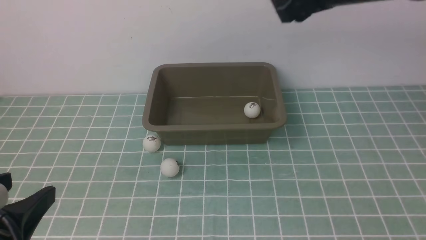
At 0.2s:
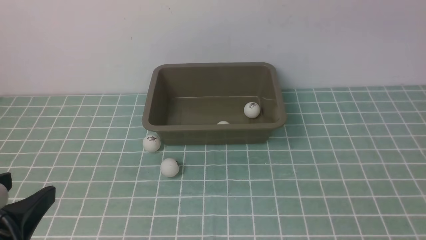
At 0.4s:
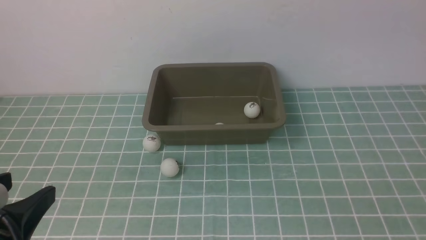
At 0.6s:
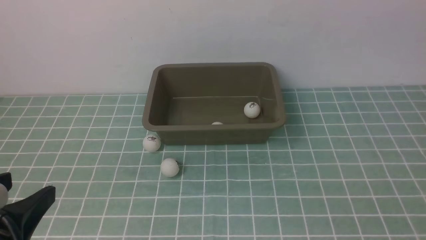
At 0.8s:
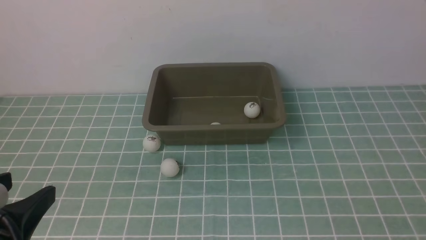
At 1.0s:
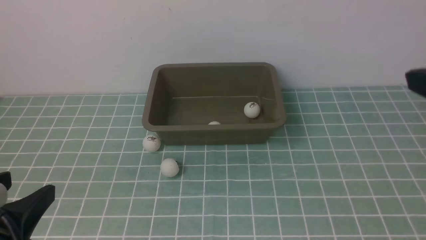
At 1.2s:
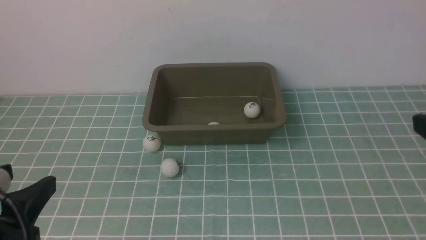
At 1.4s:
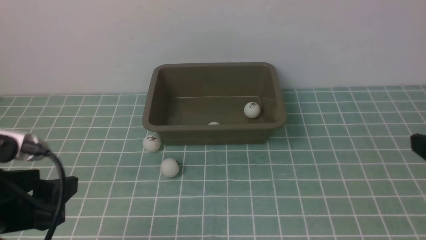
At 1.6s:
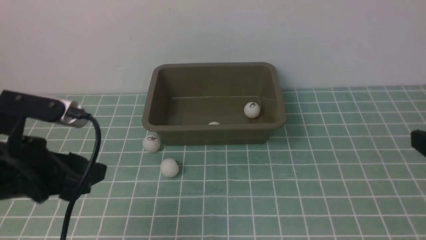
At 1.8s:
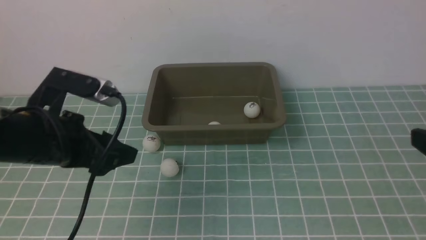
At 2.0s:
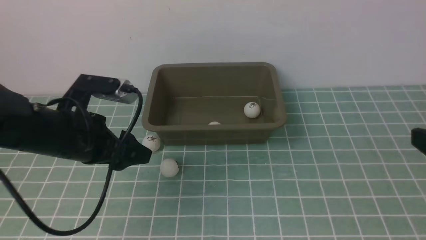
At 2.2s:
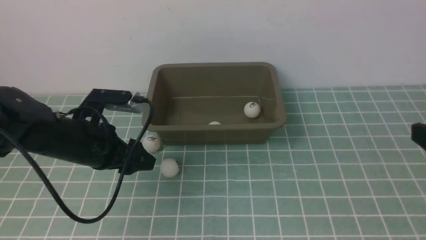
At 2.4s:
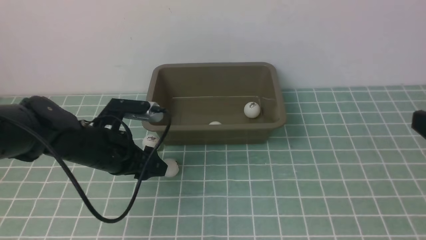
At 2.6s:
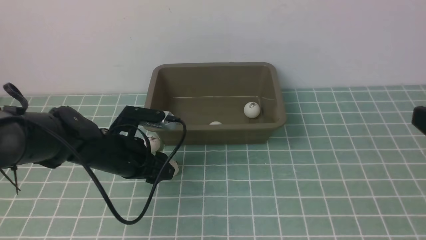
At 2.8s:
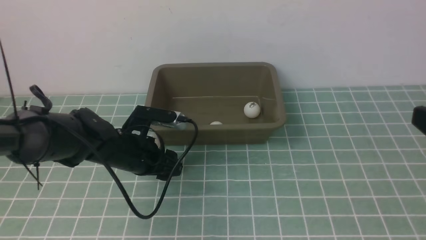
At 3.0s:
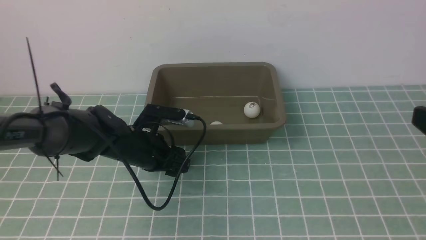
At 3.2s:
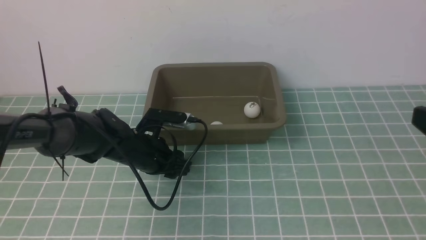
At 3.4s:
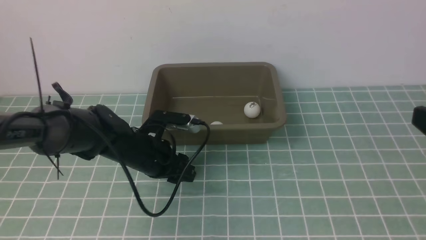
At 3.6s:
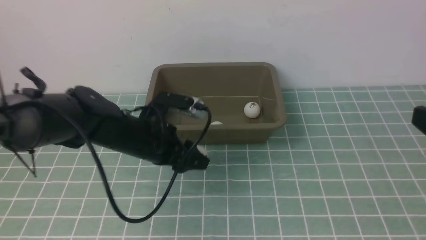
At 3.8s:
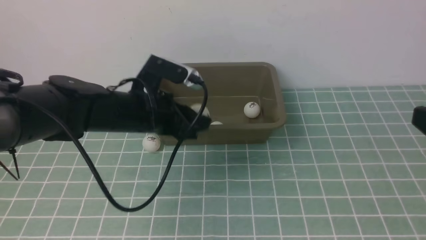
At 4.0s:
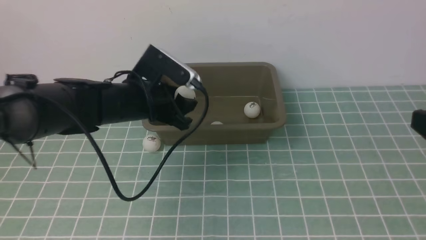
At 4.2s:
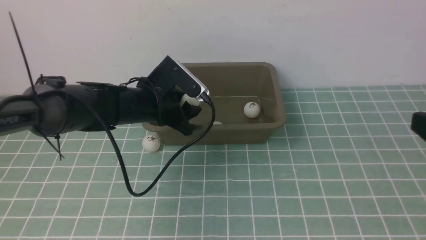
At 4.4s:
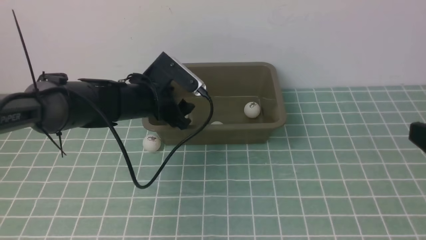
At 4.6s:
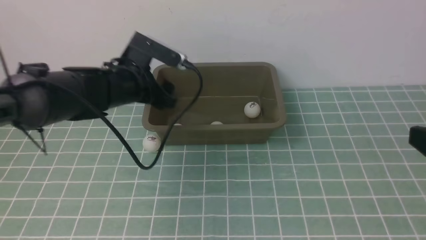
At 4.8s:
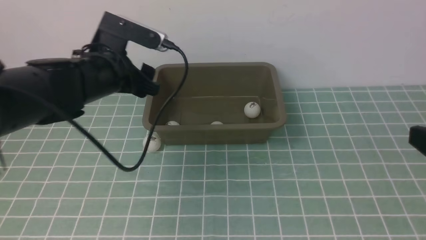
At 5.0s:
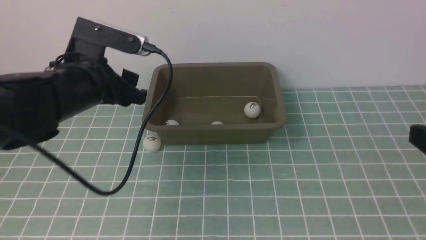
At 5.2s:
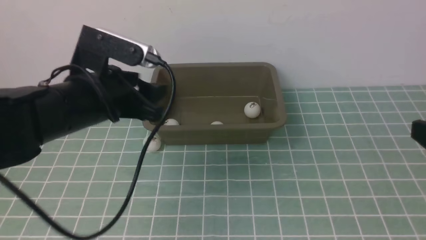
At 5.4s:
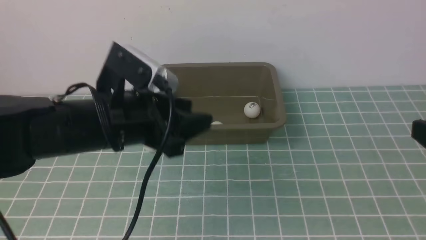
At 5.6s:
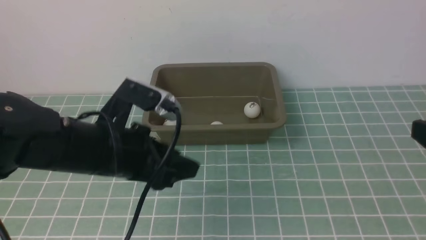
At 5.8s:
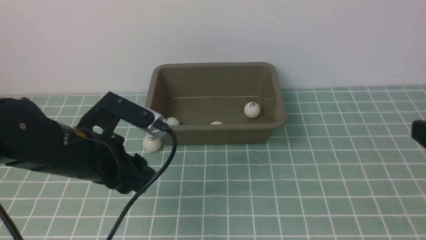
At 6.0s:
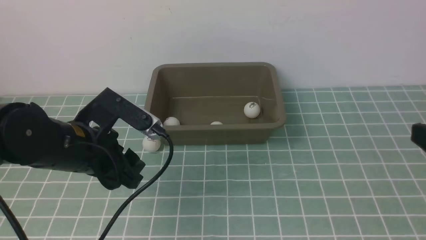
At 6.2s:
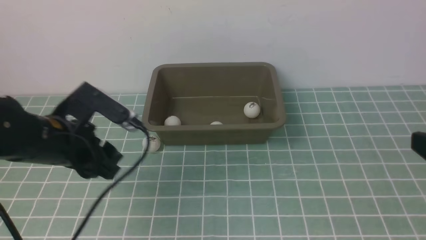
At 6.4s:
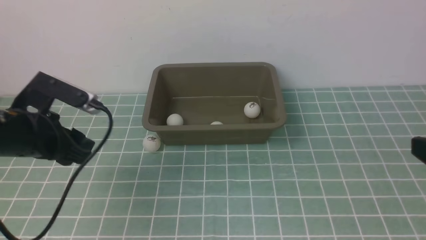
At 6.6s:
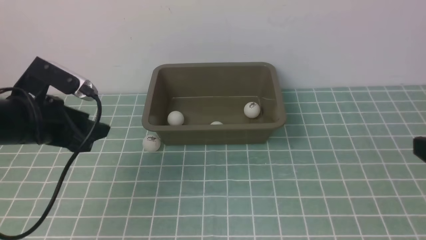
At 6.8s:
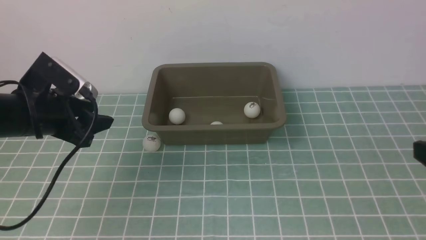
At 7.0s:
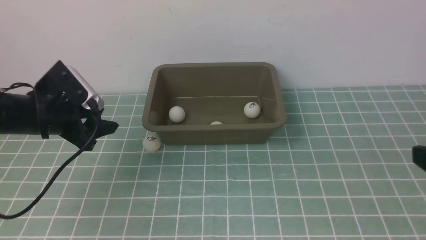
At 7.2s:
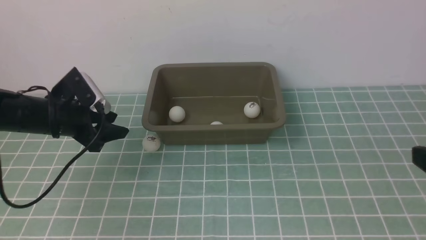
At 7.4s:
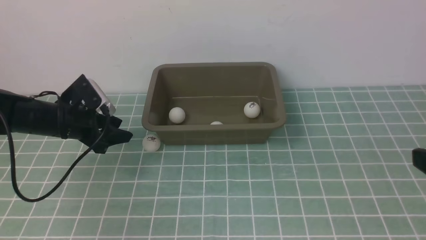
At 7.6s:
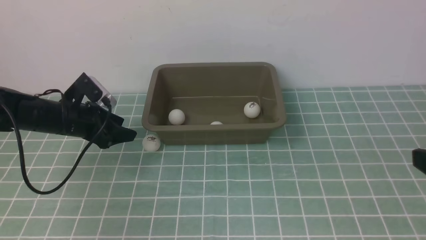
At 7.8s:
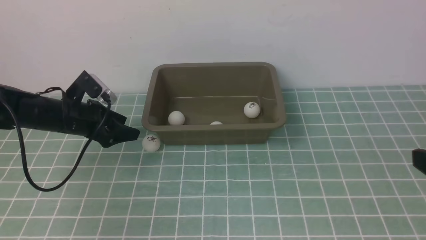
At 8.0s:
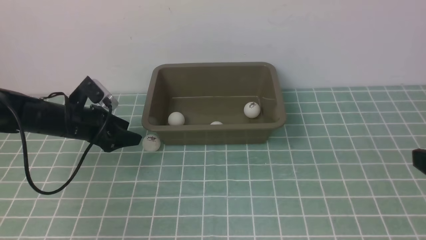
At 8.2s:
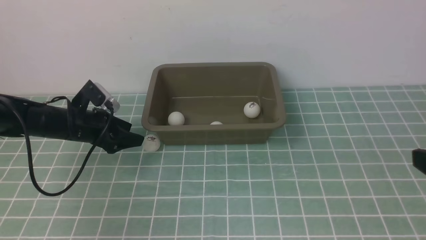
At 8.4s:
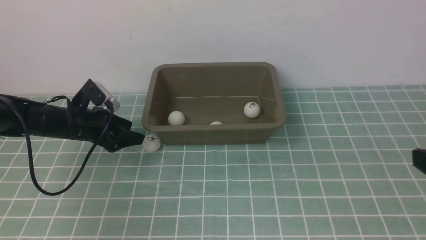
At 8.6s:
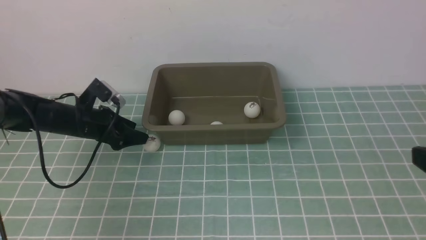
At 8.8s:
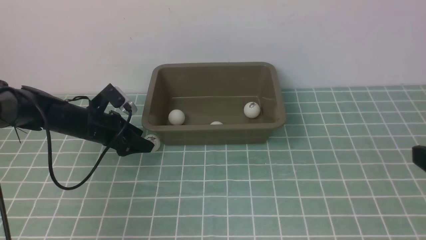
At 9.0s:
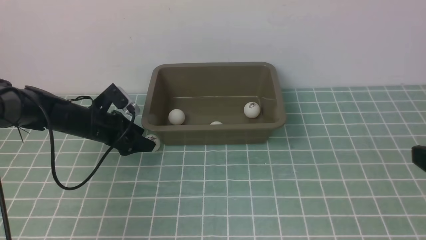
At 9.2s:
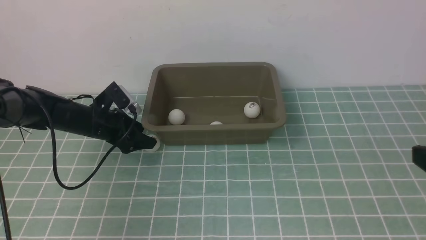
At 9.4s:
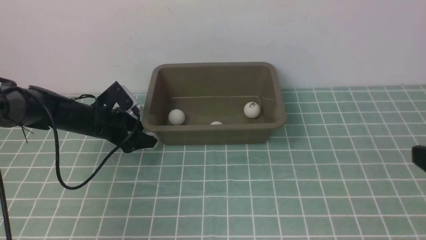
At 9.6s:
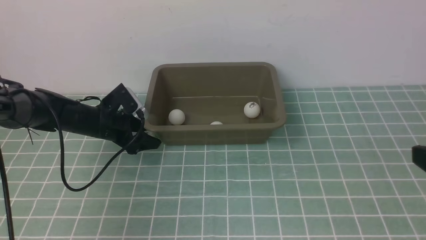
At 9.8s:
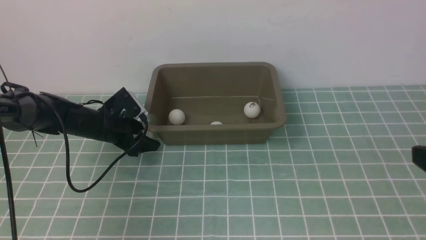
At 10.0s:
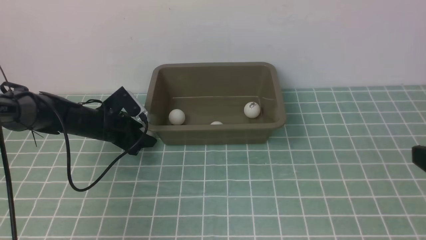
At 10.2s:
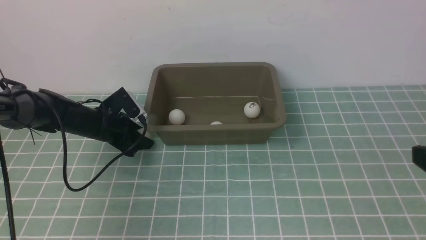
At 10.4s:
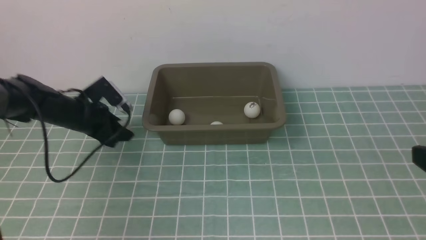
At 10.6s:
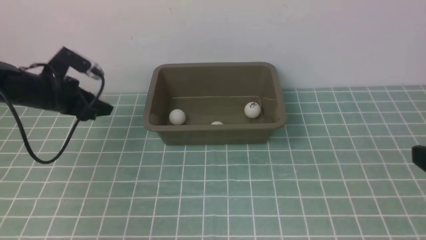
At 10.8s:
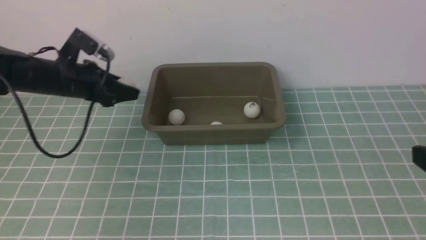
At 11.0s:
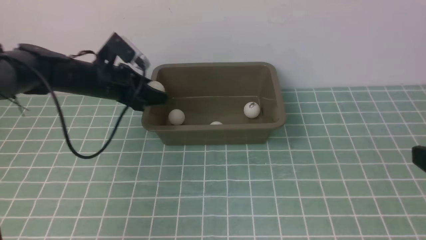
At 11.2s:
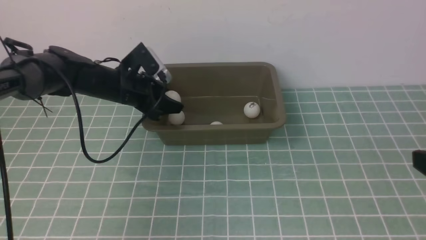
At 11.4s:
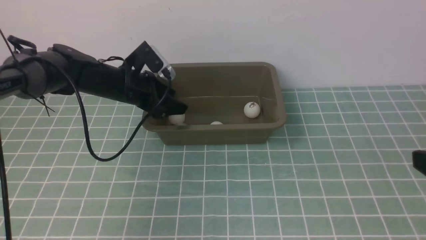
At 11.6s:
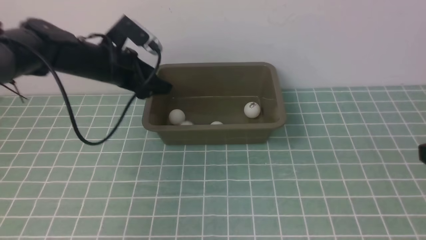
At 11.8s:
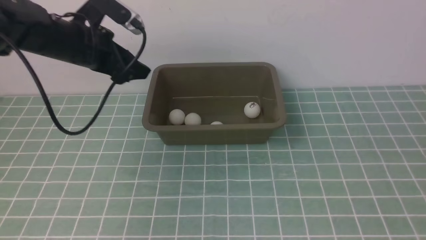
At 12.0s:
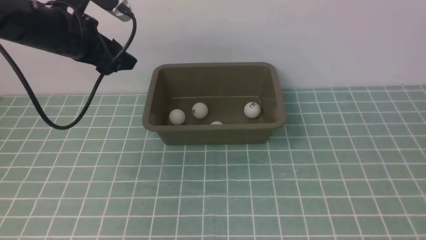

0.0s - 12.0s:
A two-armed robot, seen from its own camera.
Step, 0.0s - 3.6s: use the left arm to clamp the table tennis ball closest to it.
Step, 3.8s - 4.4s: use the left arm to put the table tennis ball into the box.
Step, 4.8s - 10.4s: use the left arm to clamp the table tennis ball closest to it.
Step, 10.6s - 11.4s: use the left arm to put the table tennis ball into the box.
0.0s - 1.6s: The right gripper is displaced backward and downward by roughly 20 cm, while the left gripper goes about 20 cm forward.
1.6s - 3.0s: The left gripper shifts approximately 10 cm to the right and forward, and closes its fingers.
3.0s - 4.4s: The left gripper travels upward and to the left by approximately 10 cm, and opens.
4.4s - 6.0s: The left gripper moves backward, approximately 10 cm, and closes its fingers.
6.0s - 7.6s: The left gripper moves forward, downward and to the left, approximately 15 cm, and opens its fingers.
7.6s - 9.0s: The left gripper moves roughly 5 cm.
9.0s - 10.4s: The left gripper moves upward, roughly 5 cm, and closes up.
10.4s - 12.0s: The left gripper goes roughly 15 cm upward and to the right, and opens its fingers, while the right gripper goes roughly 10 cm backward.

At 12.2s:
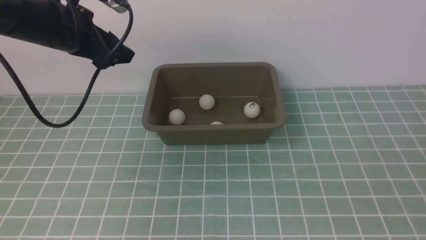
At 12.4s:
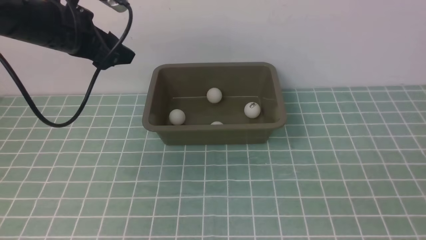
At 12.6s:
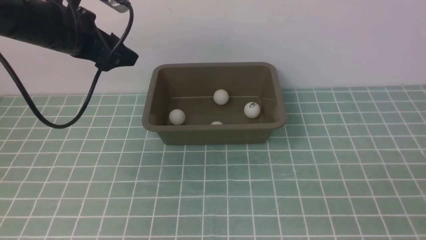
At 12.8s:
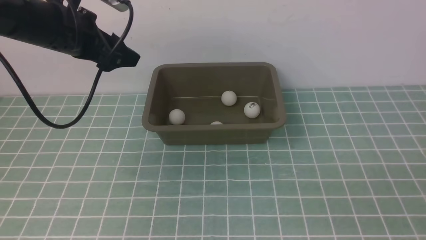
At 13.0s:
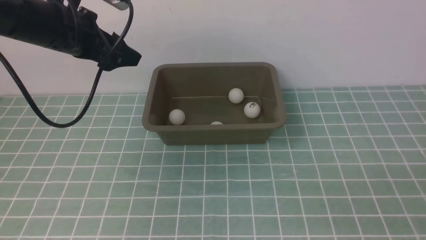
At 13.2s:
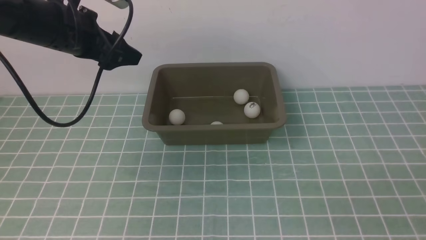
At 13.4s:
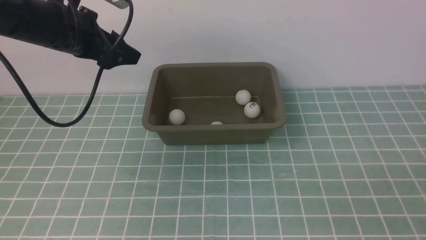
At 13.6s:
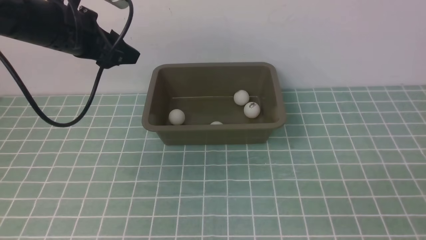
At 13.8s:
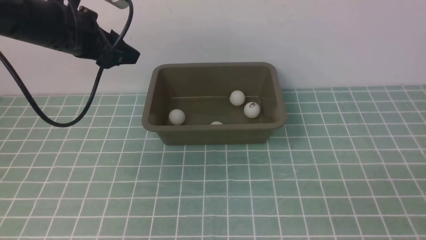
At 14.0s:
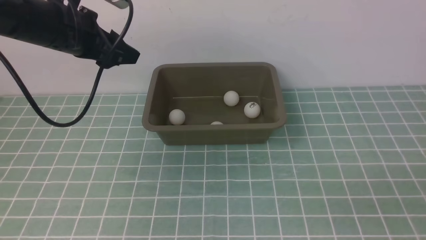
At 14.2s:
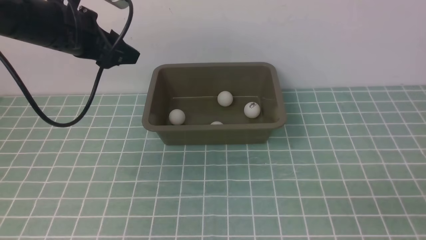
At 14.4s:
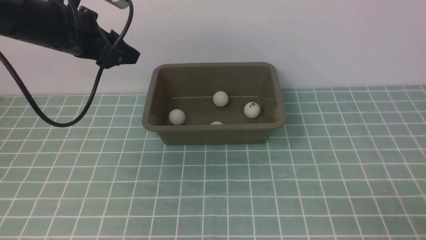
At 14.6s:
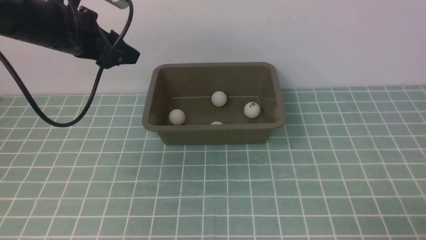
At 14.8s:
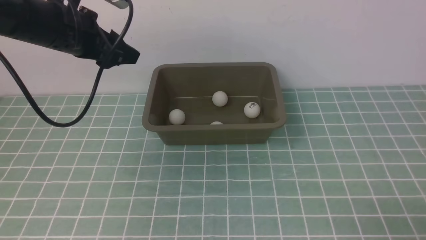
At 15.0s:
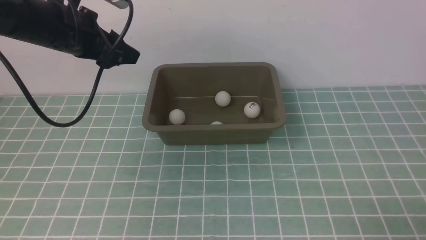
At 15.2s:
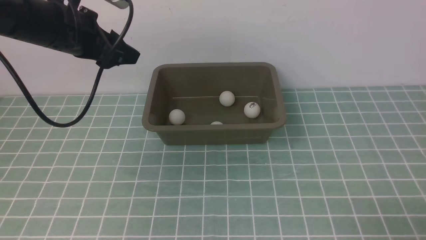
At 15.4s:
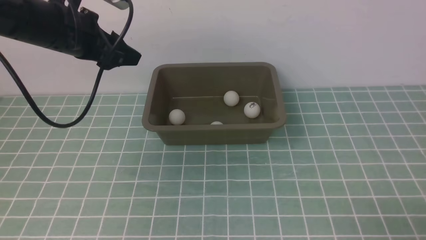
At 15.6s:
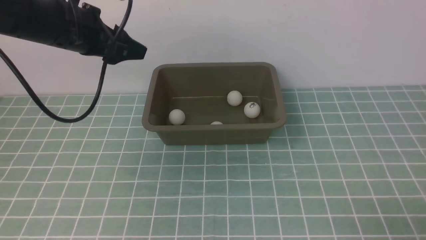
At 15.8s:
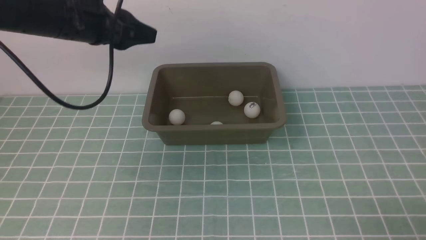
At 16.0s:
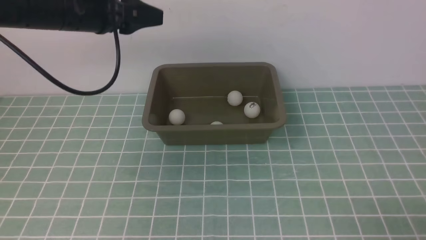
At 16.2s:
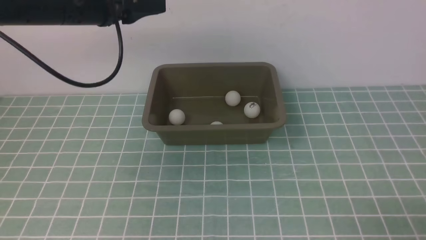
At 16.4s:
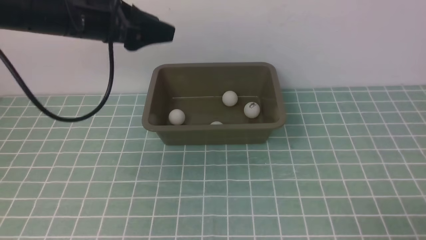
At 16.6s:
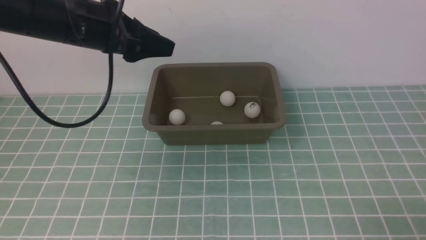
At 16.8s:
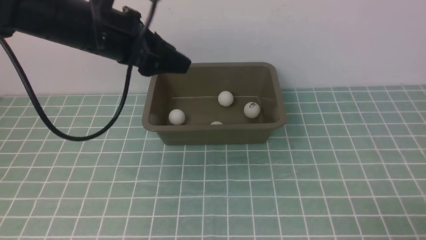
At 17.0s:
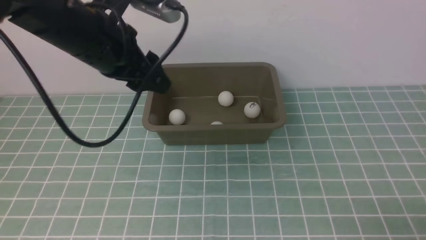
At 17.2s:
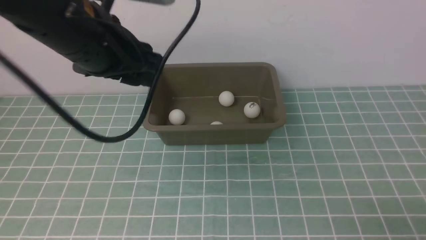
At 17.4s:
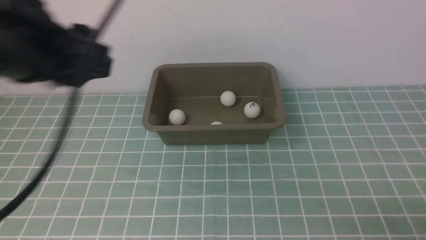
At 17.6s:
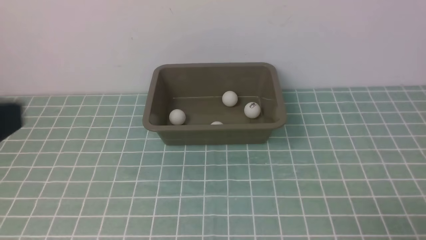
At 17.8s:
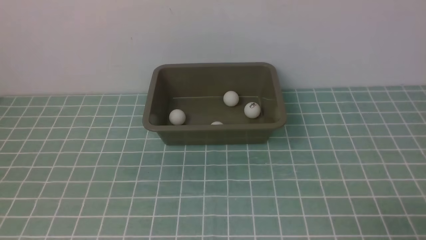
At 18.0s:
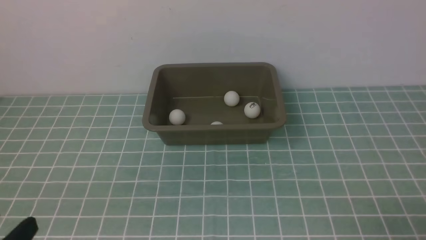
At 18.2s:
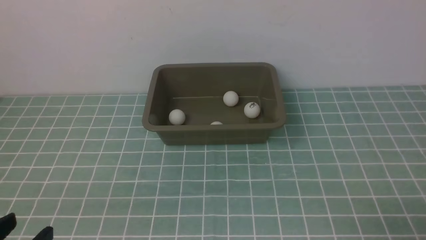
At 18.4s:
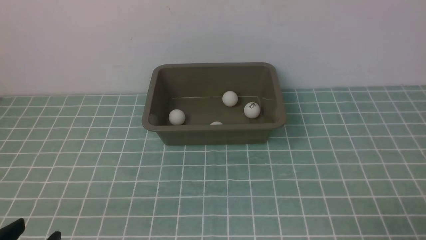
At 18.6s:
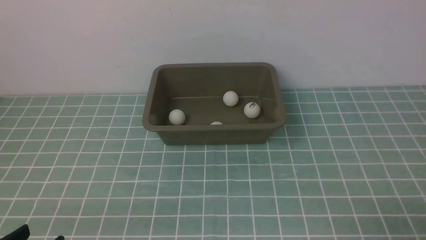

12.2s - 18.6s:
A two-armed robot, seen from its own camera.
12.2s - 13.8s: The left gripper closes up.
15.4s - 17.0s: The left gripper goes approximately 30 cm backward.
17.0s - 18.6s: The left gripper heads downward, covering roughly 25 cm.
